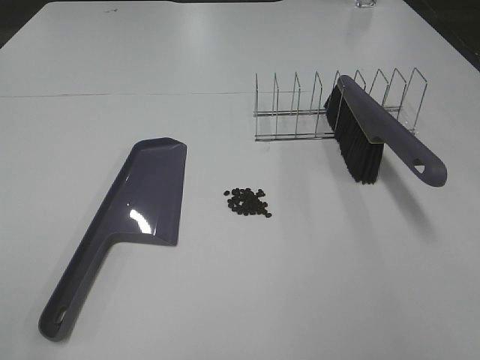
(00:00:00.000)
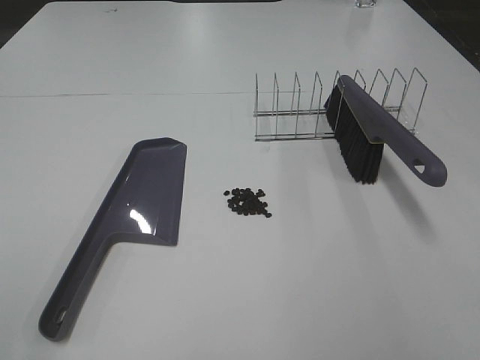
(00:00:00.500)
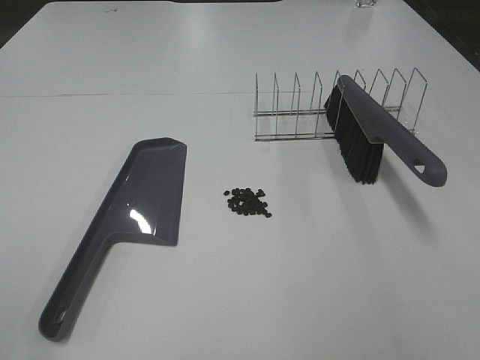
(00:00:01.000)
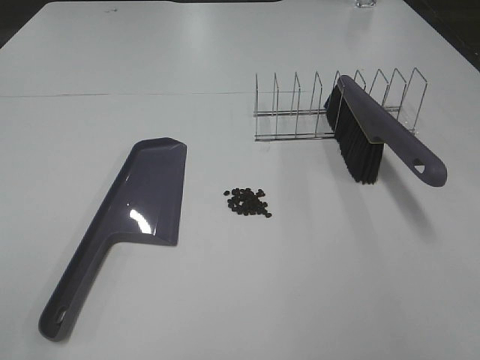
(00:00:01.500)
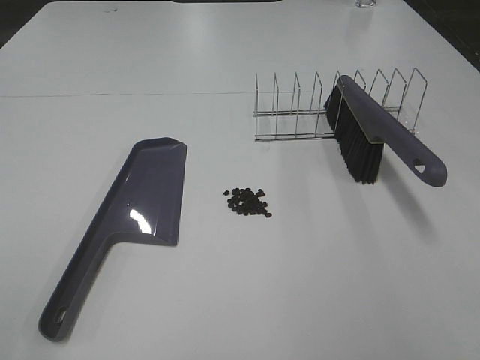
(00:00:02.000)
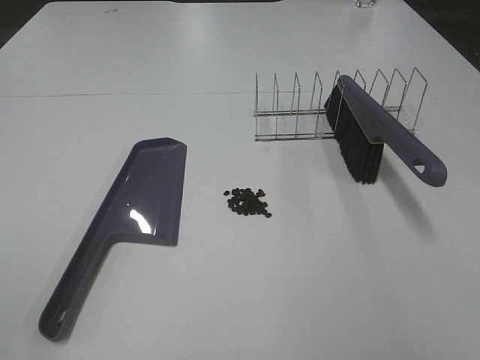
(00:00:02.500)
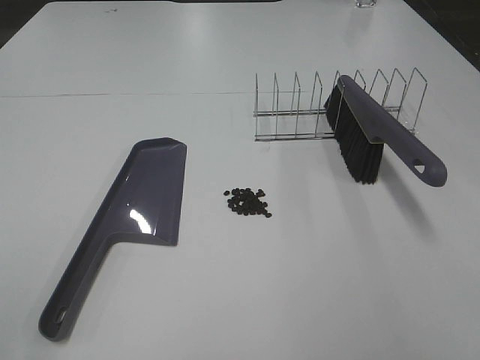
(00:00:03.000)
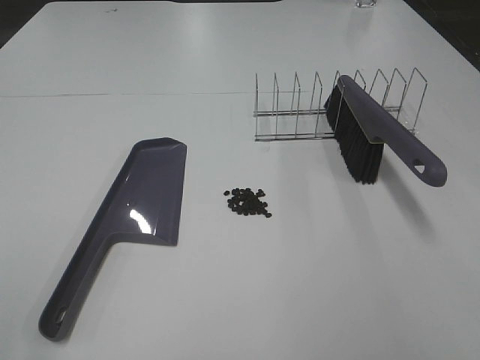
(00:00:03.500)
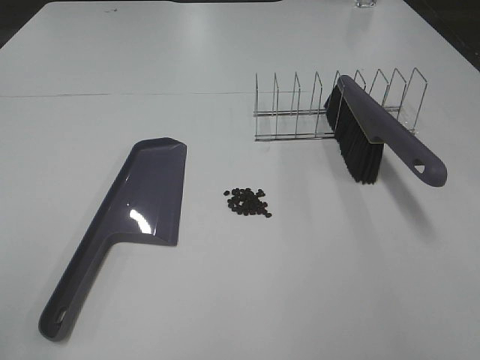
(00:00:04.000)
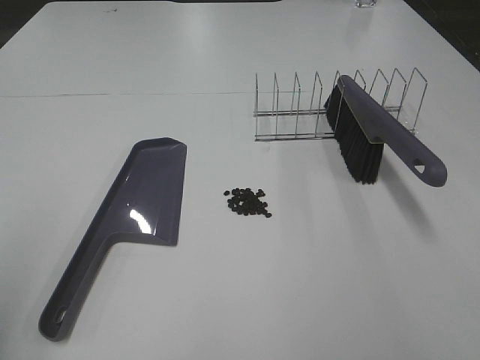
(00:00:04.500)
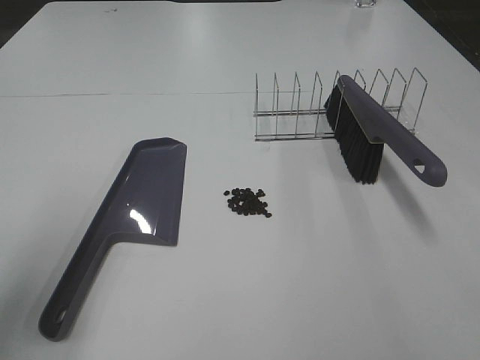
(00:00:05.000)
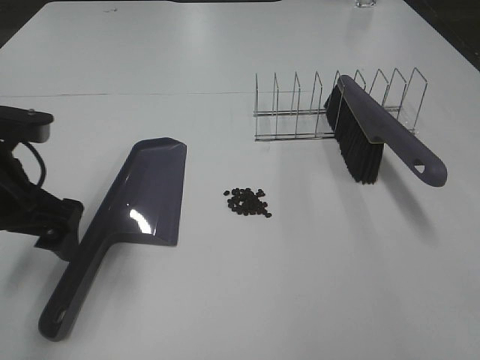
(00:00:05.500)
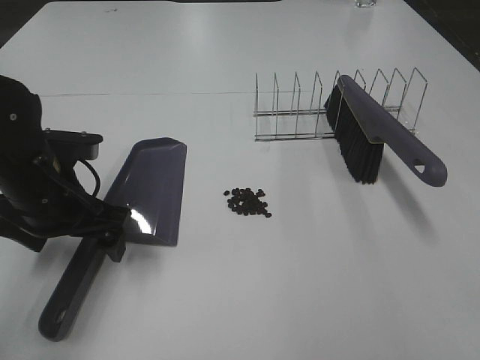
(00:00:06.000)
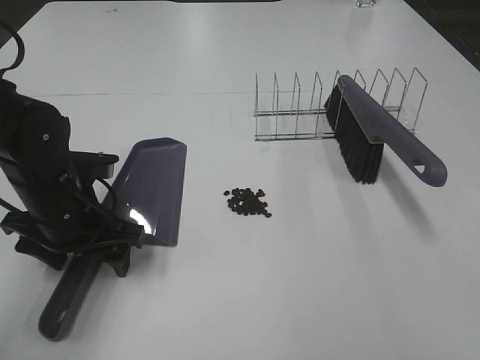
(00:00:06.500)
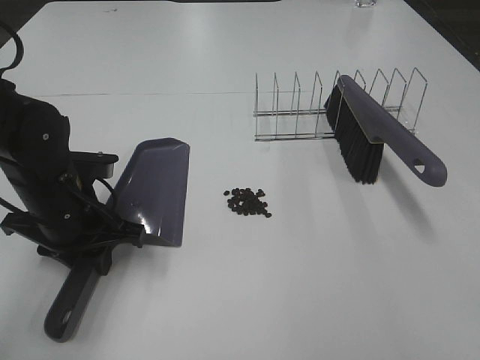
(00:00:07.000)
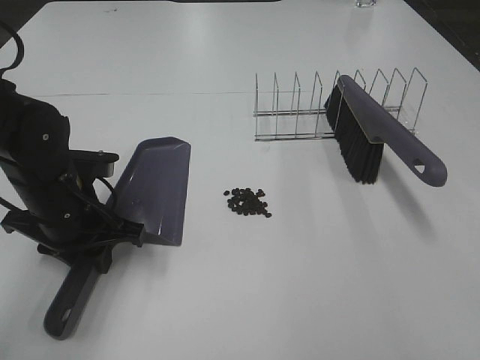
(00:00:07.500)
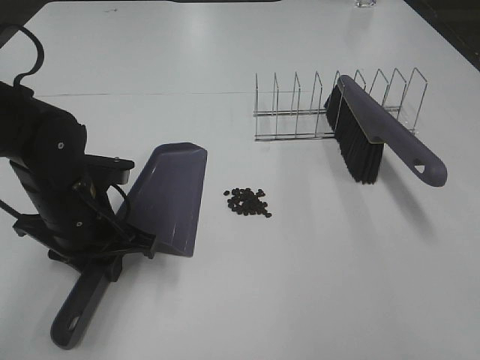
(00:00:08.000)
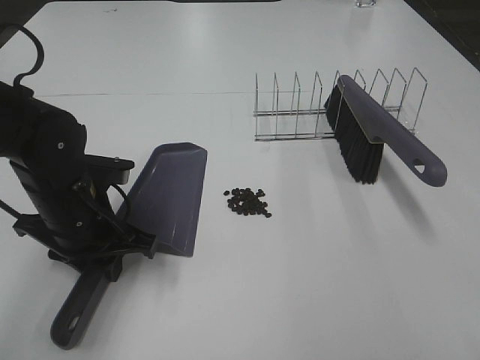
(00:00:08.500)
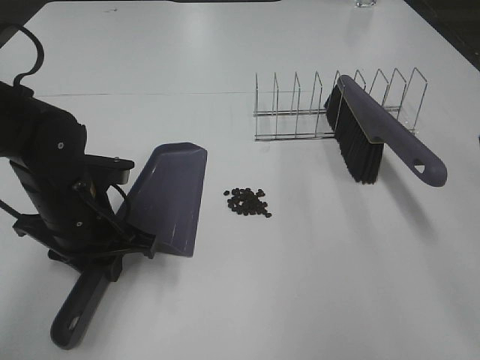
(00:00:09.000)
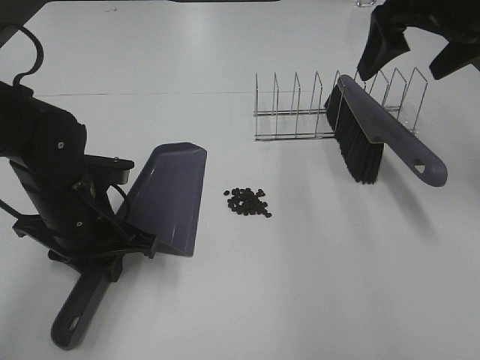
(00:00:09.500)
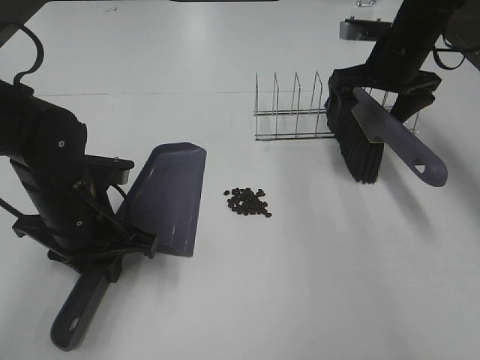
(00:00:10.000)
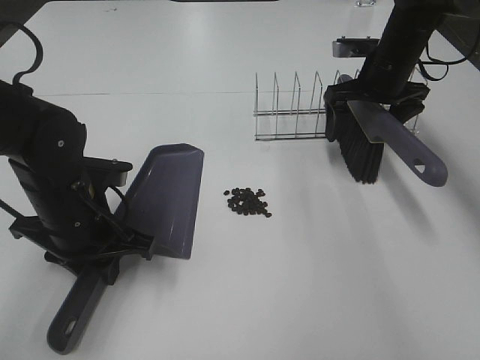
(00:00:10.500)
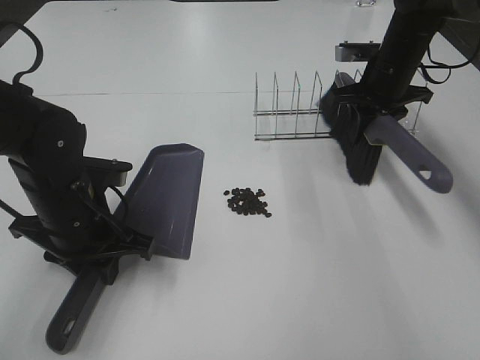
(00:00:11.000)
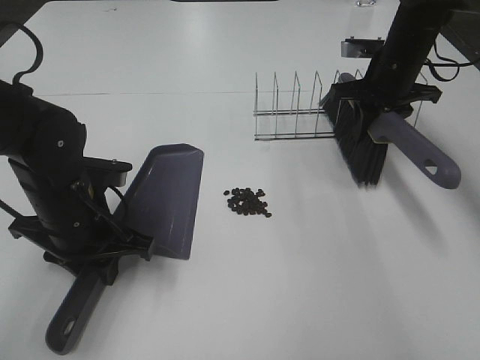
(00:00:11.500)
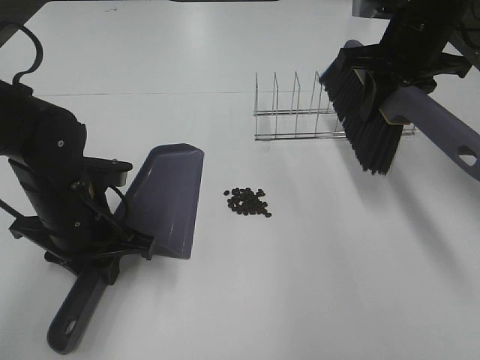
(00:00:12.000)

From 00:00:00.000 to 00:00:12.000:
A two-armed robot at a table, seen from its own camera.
Task of the whole recording: Sweep Coffee Bean.
Step, from 00:00:00.000 to 00:00:07.000: Left hand: grab the dustpan.
Step, from 00:00:08.000 to 00:00:11.000: Right hand:grab the broom.
From 00:00:00.000 to 00:00:02.000: Both grippers stay about where they are.
From 00:00:04.000 to 00:00:06.000: The left gripper heads forward, downward and to the right, covering roughly 35 cm.
From 00:00:06.000 to 00:00:08.000: The left gripper closes.
From 00:00:08.000 to 00:00:10.000: The right gripper goes approximately 50 cm forward, and opens.
From 00:00:10.000 to 00:00:12.000: The right gripper goes approximately 10 cm upward and backward, and closes its fingers.

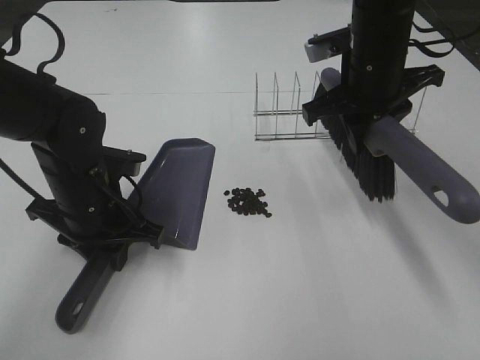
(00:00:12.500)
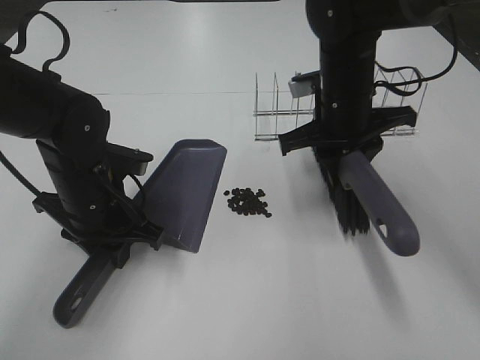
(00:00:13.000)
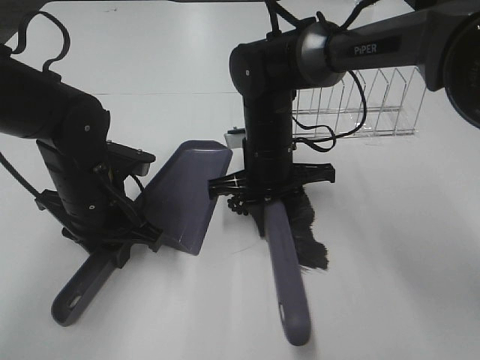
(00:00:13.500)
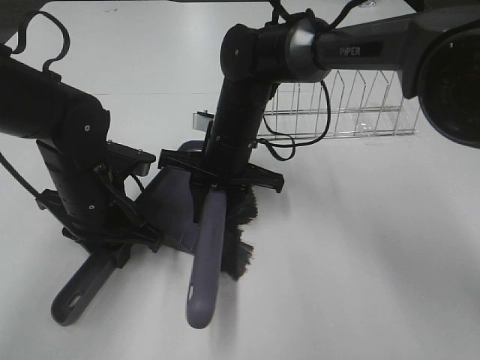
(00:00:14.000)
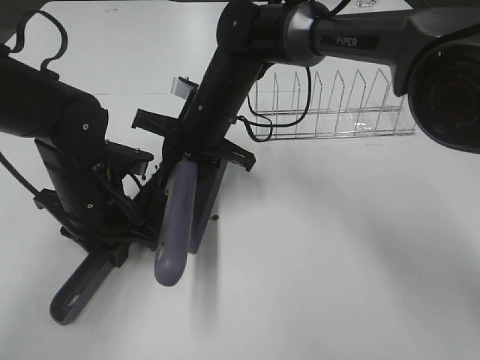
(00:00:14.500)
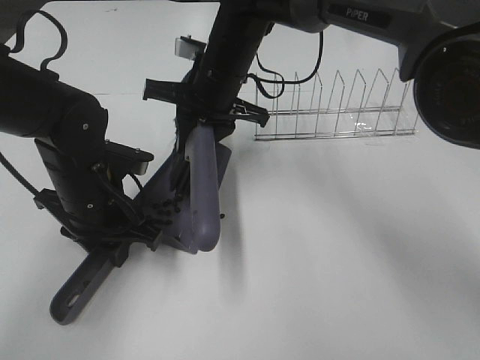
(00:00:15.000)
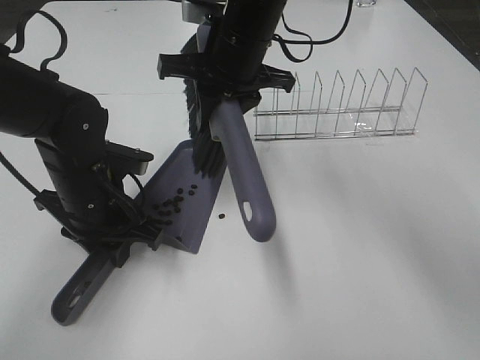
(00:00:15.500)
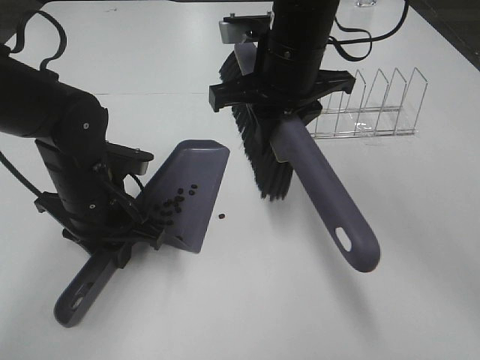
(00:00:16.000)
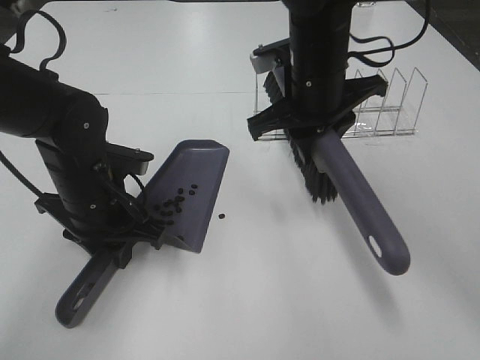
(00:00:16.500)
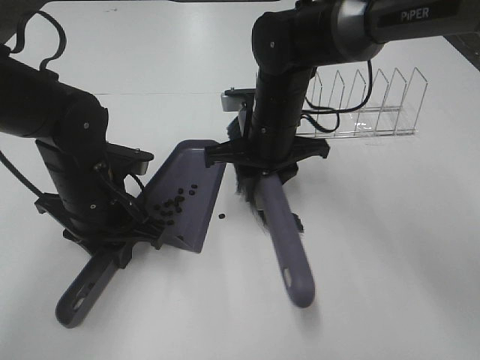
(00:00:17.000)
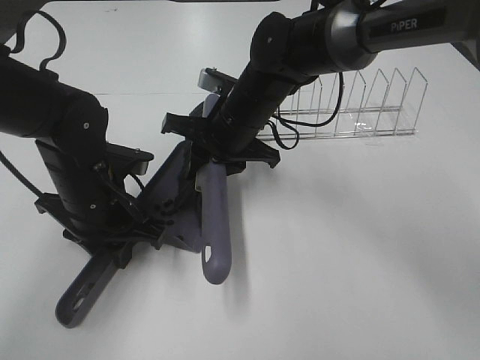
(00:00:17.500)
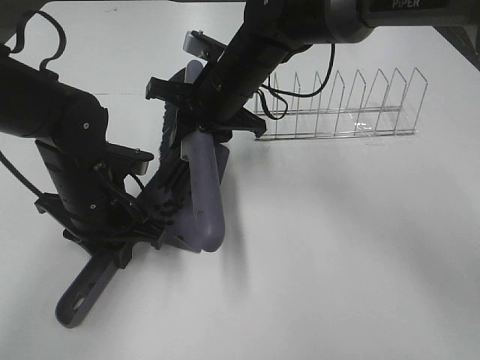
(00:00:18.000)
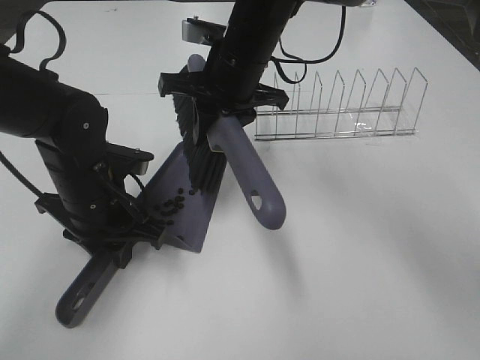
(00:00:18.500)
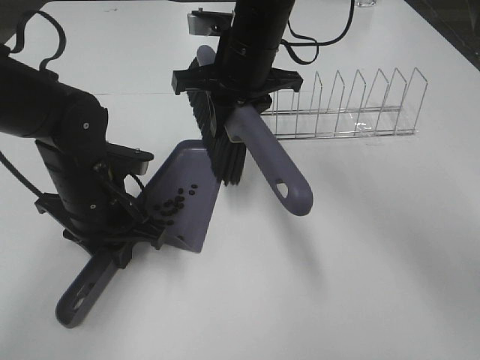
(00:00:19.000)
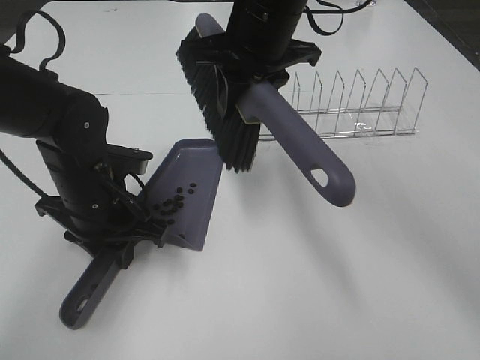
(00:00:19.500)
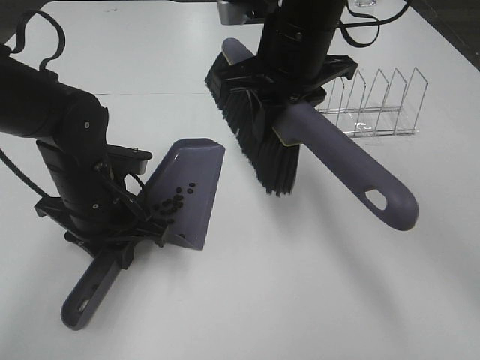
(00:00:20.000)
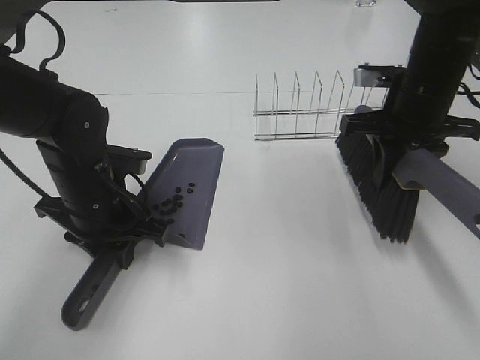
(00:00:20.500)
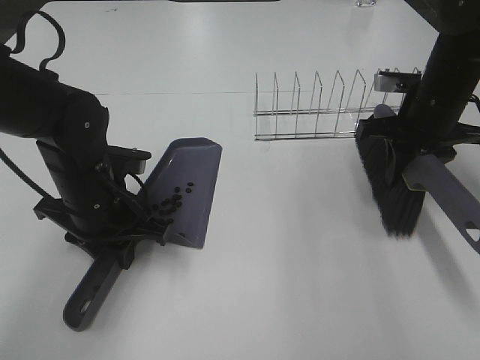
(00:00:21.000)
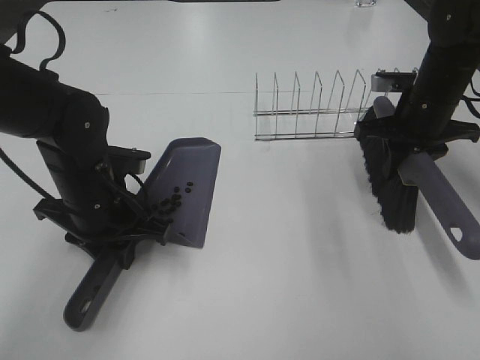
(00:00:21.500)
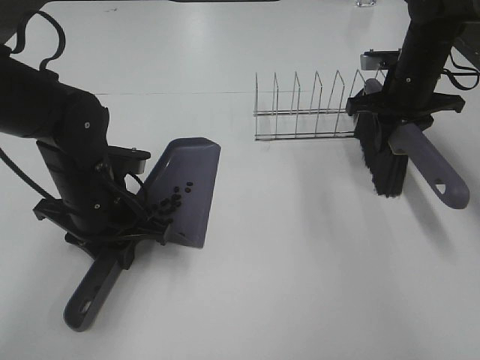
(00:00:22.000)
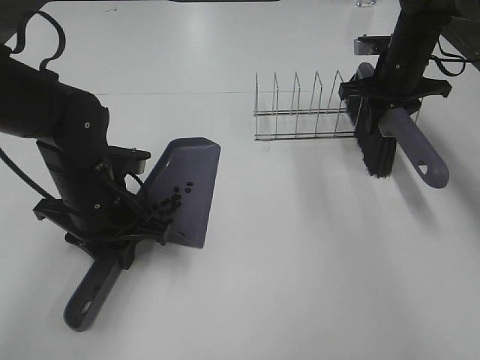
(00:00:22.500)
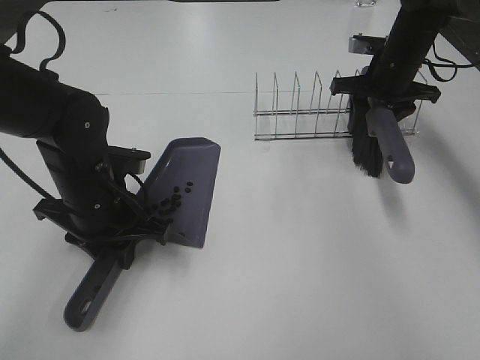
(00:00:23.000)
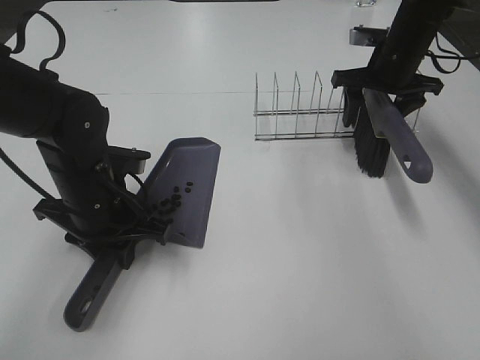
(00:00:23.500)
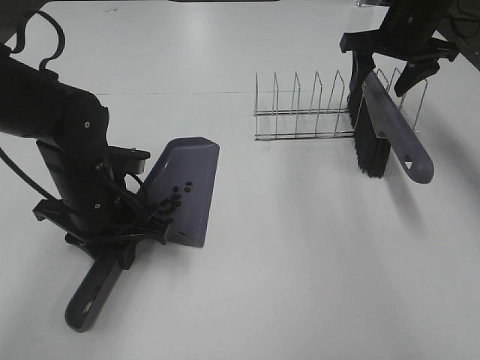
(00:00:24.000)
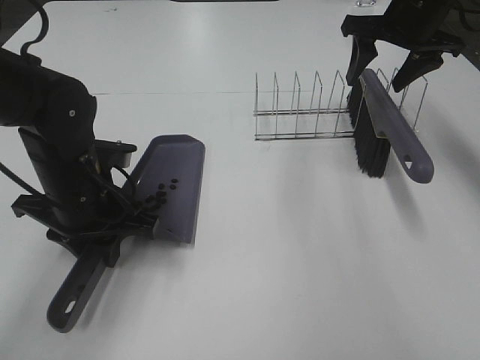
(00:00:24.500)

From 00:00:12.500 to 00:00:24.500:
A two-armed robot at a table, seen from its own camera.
Task of the whole recording: Sweep Coffee Bean.
Step, from 00:00:12.500 to 00:00:17.500: Right hand:sweep the coffee beans into the dustpan.
Step, from 00:00:18.000 to 00:00:23.500: Right hand:place the broom on the rack.
From 00:00:12.500 to 00:00:14.500: The right gripper moves to the left and downward, approximately 20 cm.
From 00:00:14.500 to 00:00:16.500: The right gripper goes approximately 10 cm to the right and upward.
From 00:00:16.500 to 00:00:18.500: The right gripper moves to the left, roughly 5 cm.
From 00:00:18.500 to 00:00:20.500: The right gripper shifts approximately 20 cm to the right.
From 00:00:20.500 to 00:00:22.500: The right gripper moves forward, about 15 cm.
From 00:00:22.500 to 00:00:24.500: The right gripper goes approximately 10 cm upward, and opens its fingers.

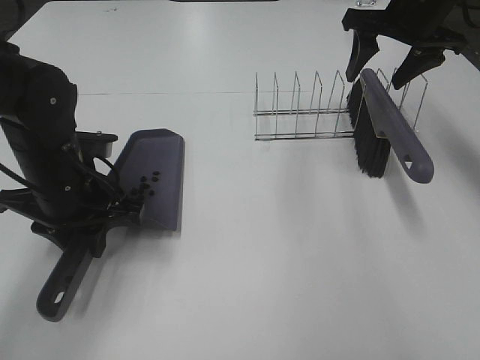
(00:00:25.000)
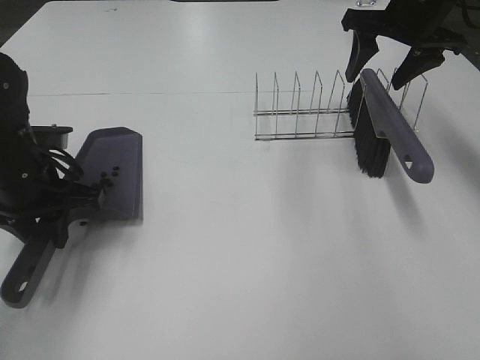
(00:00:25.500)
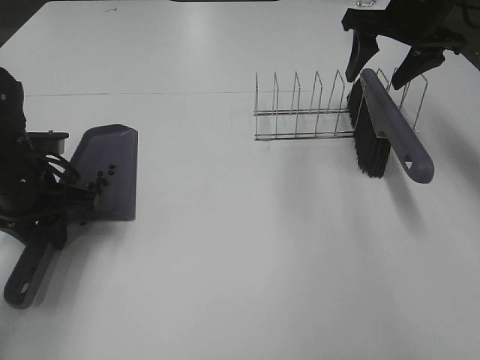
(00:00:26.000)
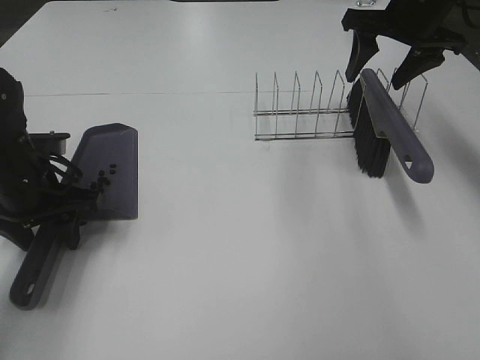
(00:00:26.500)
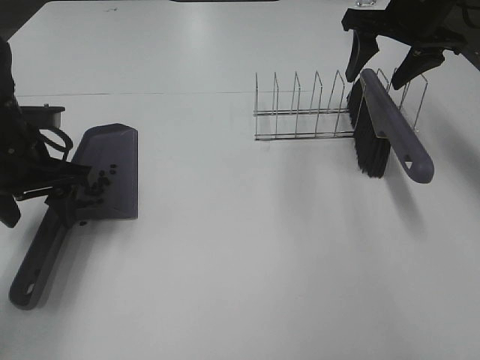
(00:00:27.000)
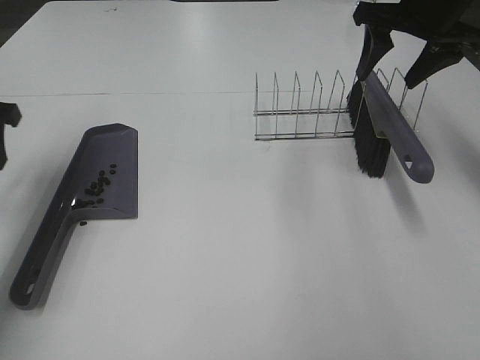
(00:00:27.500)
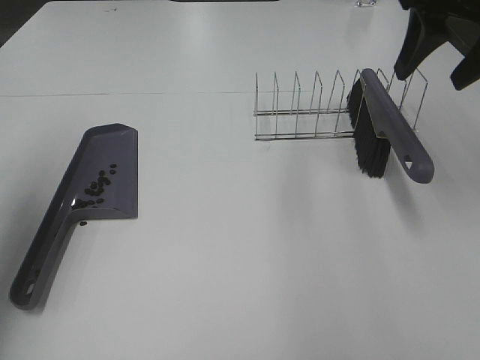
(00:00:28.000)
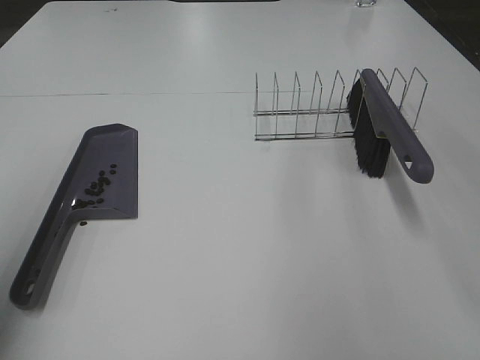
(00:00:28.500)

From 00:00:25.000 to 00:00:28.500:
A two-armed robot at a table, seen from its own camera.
Task of the whole recording: Sweep Coffee Bean.
From 00:00:25.000 to 00:00:27.000: The left gripper shifts roughly 5 cm to the left, and opens.
From 00:00:27.000 to 00:00:28.500: The right gripper shifts approximately 30 cm backward and upward, while the left gripper is displaced backward, upward and to the left by roughly 25 cm.
